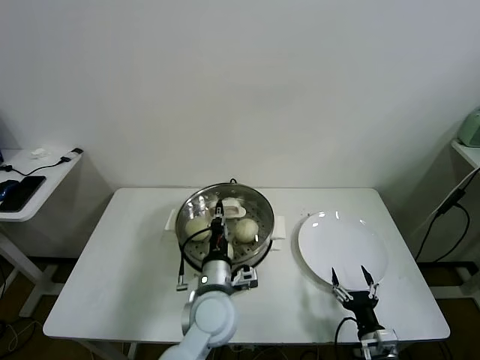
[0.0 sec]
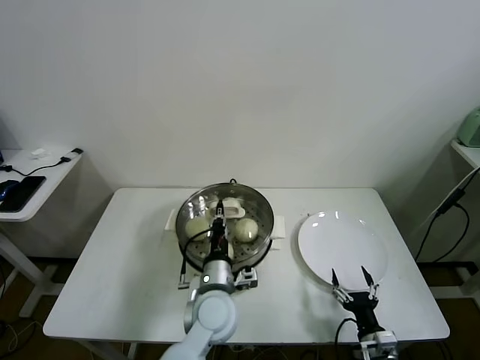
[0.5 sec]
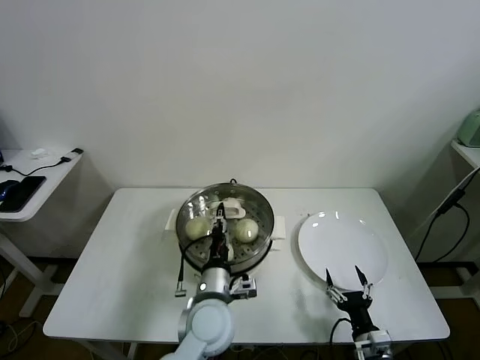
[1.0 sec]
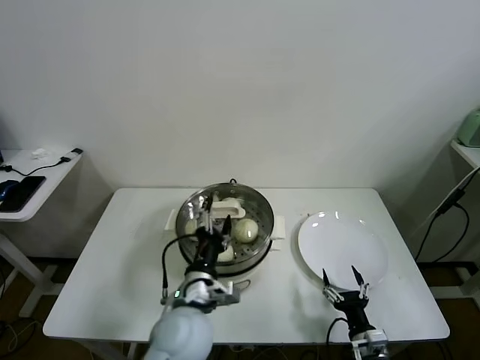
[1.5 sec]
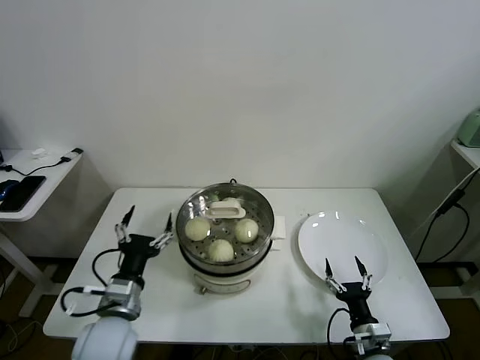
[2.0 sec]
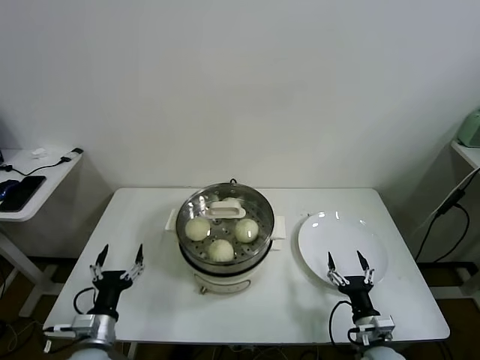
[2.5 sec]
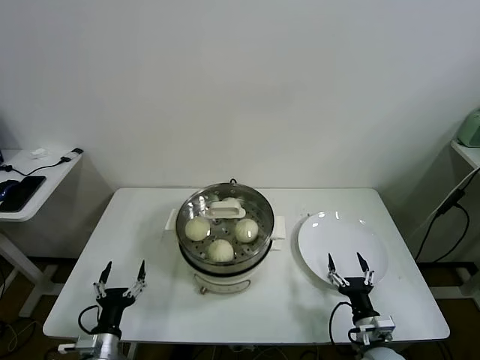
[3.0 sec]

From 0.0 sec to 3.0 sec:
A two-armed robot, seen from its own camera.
Task of the whole recording: take steamed baozi put them in steamer.
From 0.0 sec to 1.5 sec: The left gripper ends up approximately 5 cm from where it was, and opens its fingers.
From 1.5 sec to 3.0 sec: The left gripper moves to the left and downward, about 25 cm.

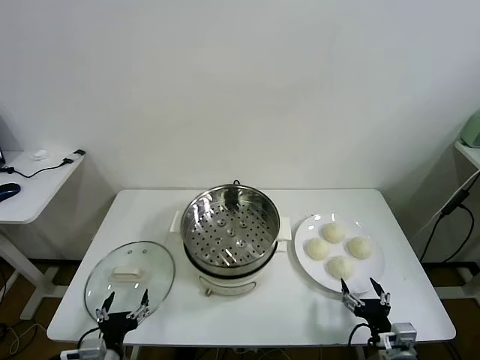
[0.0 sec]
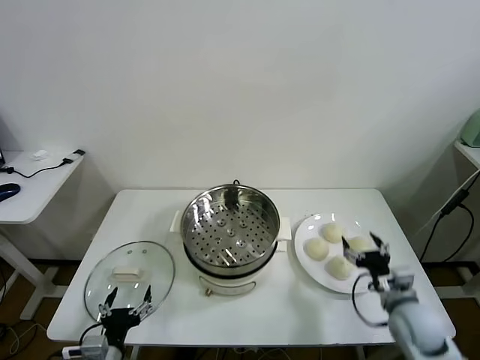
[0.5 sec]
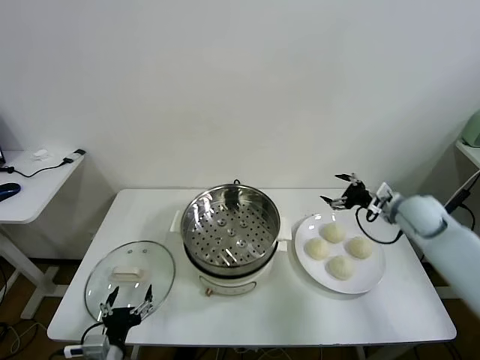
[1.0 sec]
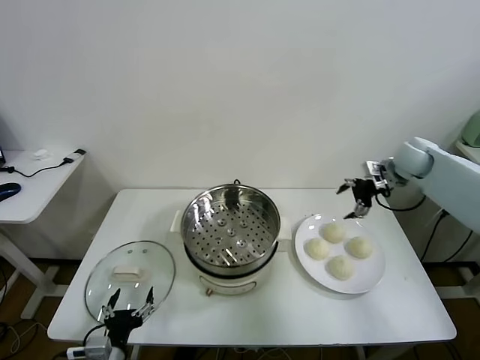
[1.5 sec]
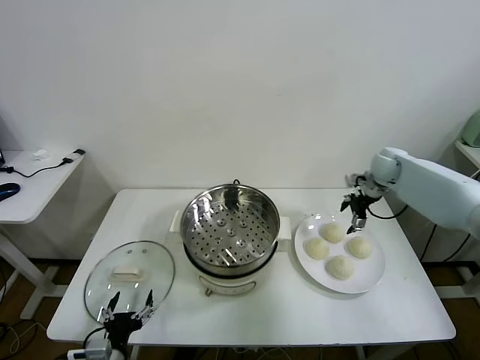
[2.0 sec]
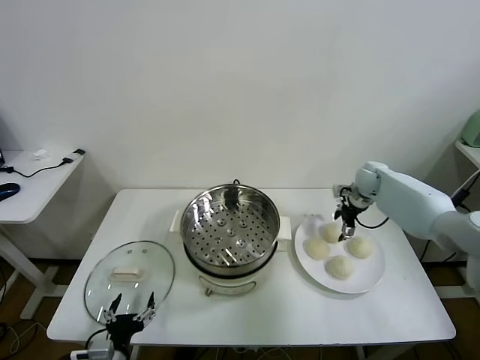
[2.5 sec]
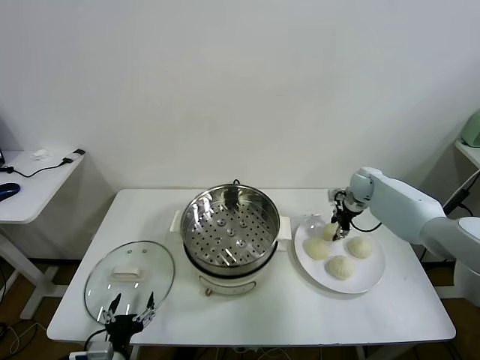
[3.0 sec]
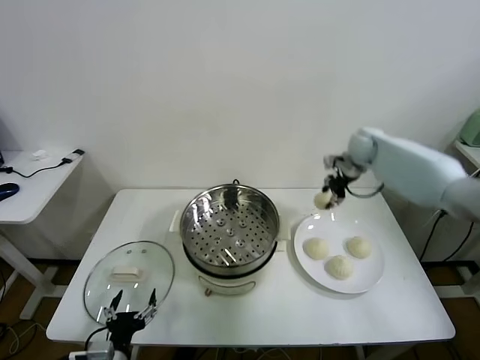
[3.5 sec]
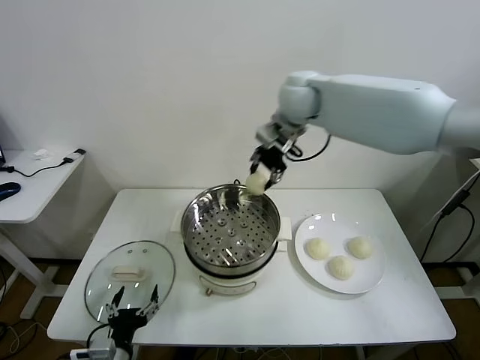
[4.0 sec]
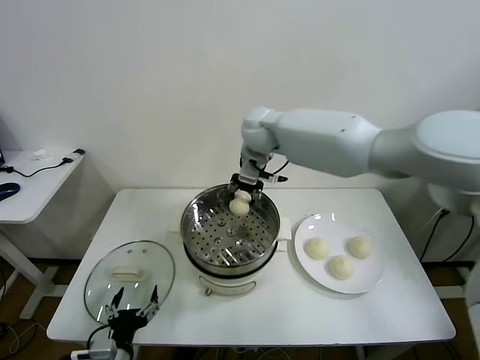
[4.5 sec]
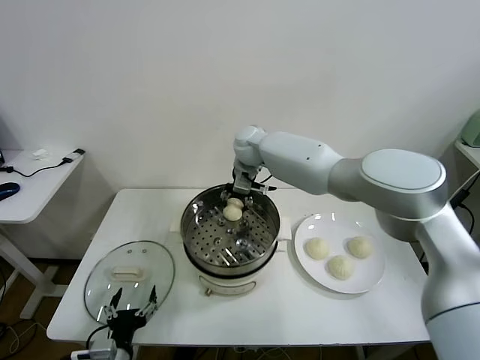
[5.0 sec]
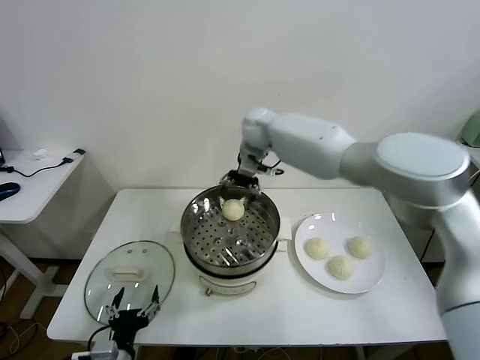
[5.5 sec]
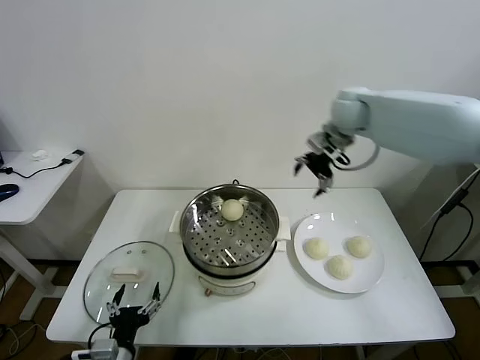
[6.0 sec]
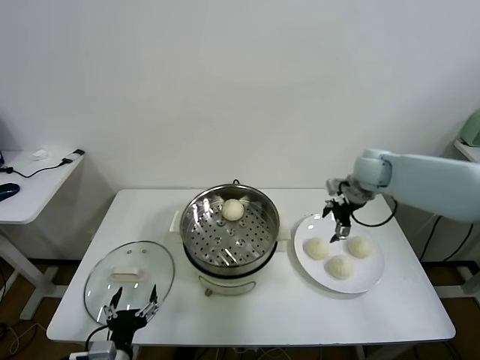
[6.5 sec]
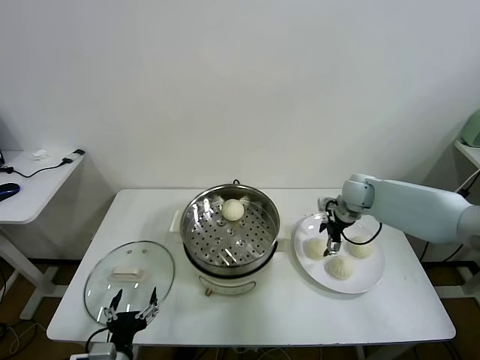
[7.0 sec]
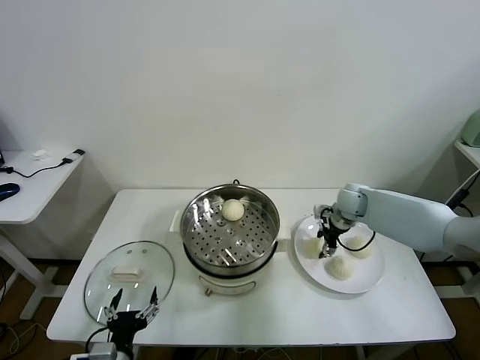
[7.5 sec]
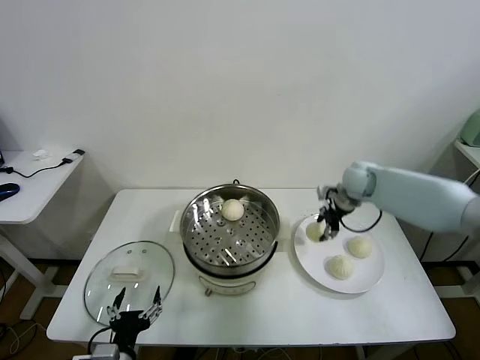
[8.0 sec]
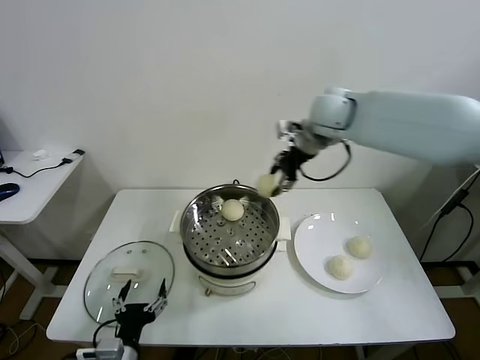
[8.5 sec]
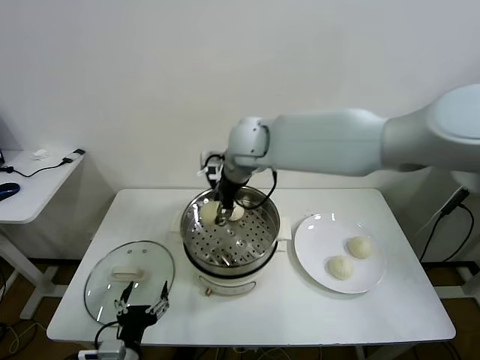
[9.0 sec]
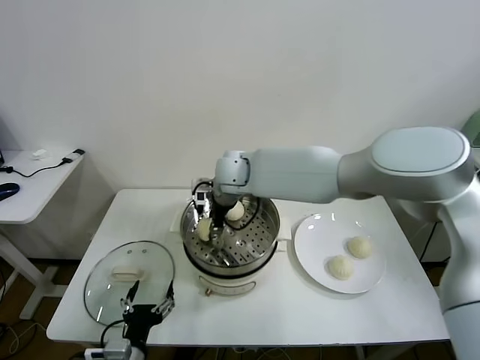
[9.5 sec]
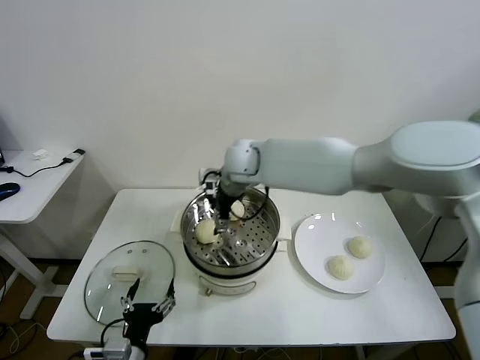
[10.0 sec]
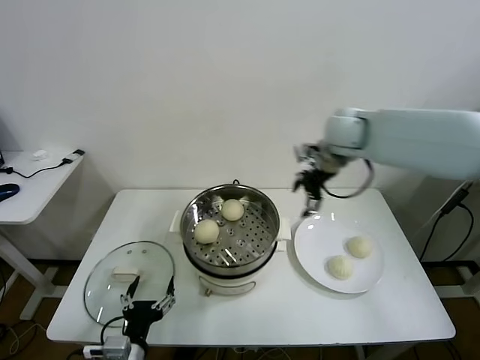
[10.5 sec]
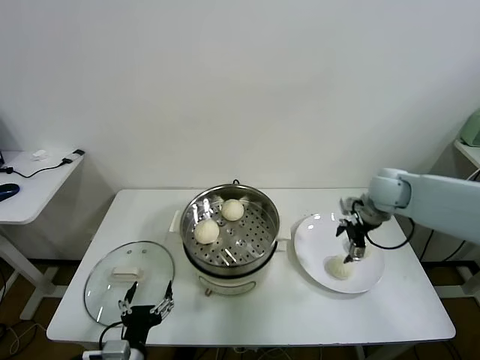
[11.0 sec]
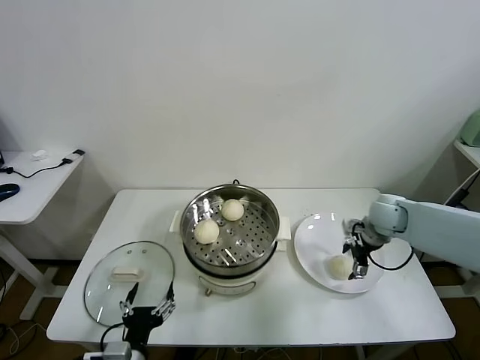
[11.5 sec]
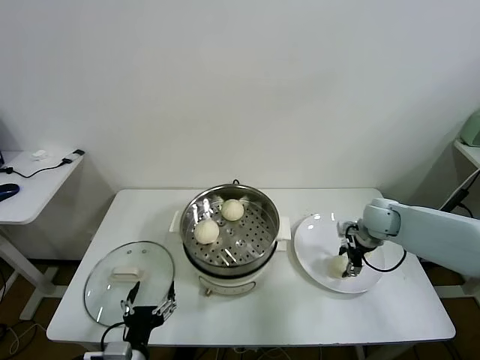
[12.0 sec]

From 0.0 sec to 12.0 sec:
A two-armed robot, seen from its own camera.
Task of the whole recording: take steamed baozi put them in steamer.
Step, from 0.0 sec to 2.5 sec: Grasp the baozi in the plate with right gripper.
Step, from 3.5 sec to 5.0 sec: Place the baozi on the steamer with right gripper.
Step, from 5.5 sec to 7.5 sec: Grasp the baozi in the plate with right gripper.
Step, from 8.0 sec to 9.5 sec: Place the baozi on the steamer with right gripper.
From 2.0 sec to 4.0 sec: The right gripper is displaced to the left and upward by some 35 cm, and closes its fingers.
From 4.0 sec to 6.0 sec: The right gripper heads to the right, covering about 20 cm, and opens its fingers.
From 6.0 sec to 8.0 sec: The right gripper heads downward, covering about 10 cm, and closes its fingers.
From 8.0 sec to 10.0 sec: The right gripper heads to the left, covering about 25 cm, and opens its fingers.
From 10.0 sec to 12.0 sec: The right gripper shifts some 35 cm to the right and downward, and closes.

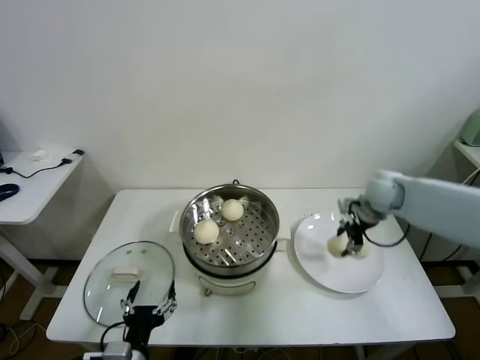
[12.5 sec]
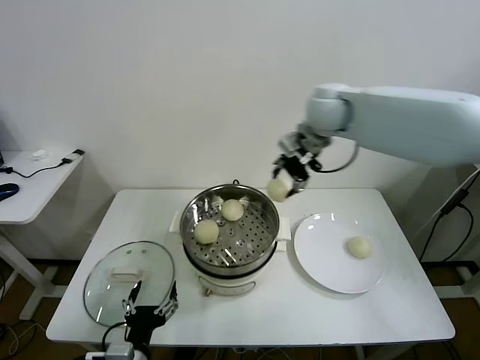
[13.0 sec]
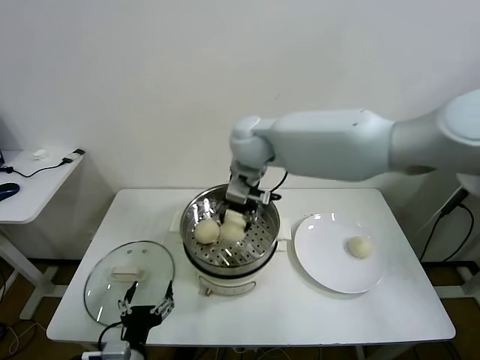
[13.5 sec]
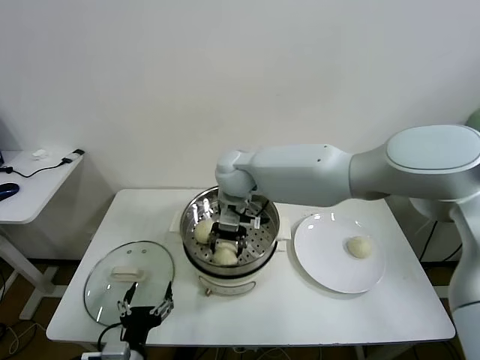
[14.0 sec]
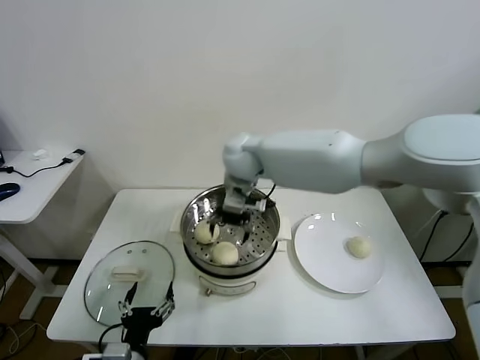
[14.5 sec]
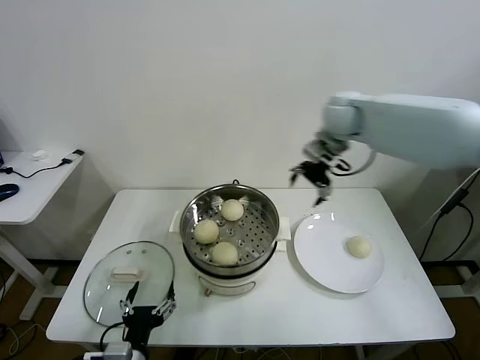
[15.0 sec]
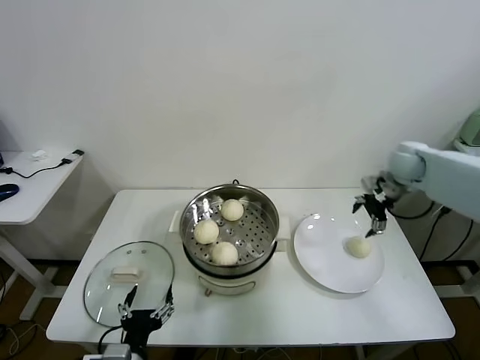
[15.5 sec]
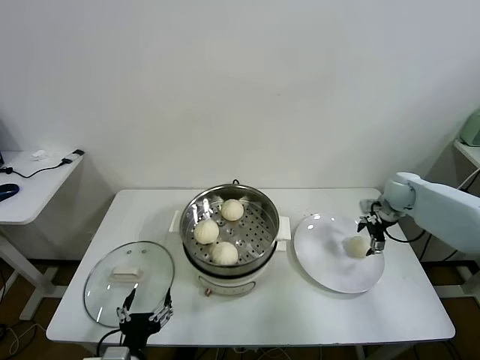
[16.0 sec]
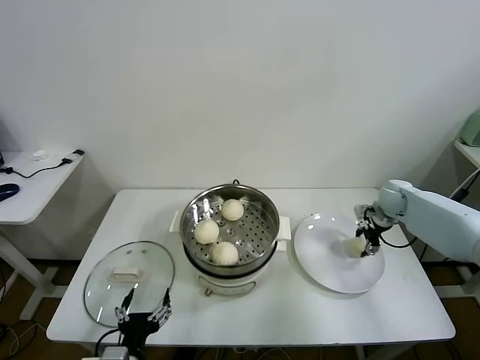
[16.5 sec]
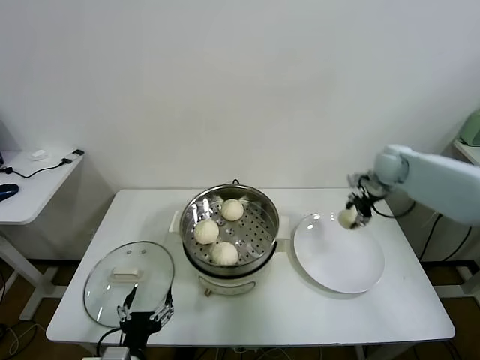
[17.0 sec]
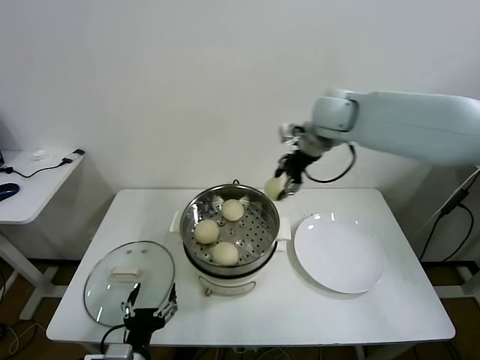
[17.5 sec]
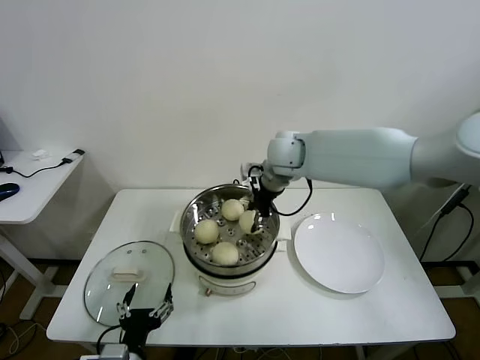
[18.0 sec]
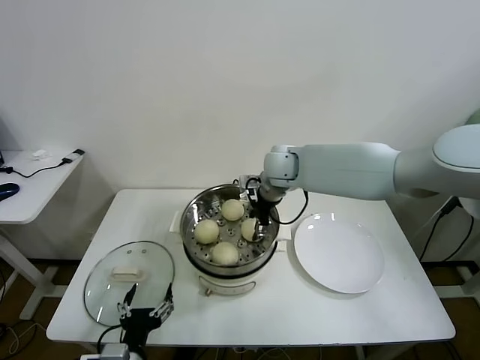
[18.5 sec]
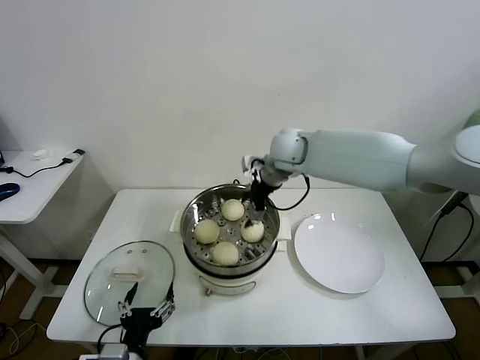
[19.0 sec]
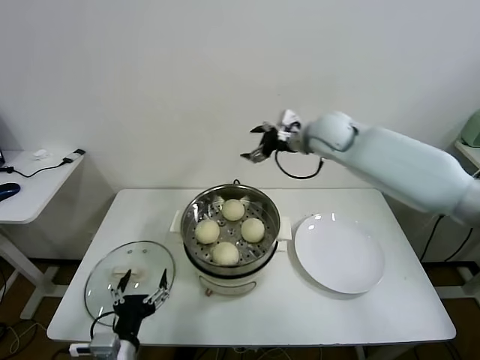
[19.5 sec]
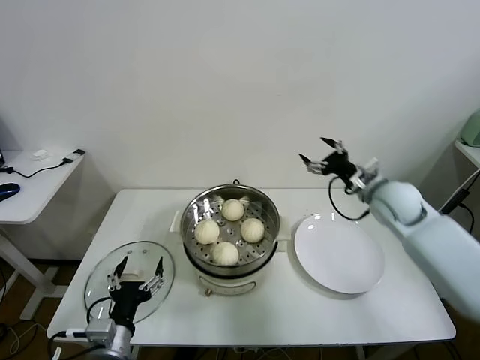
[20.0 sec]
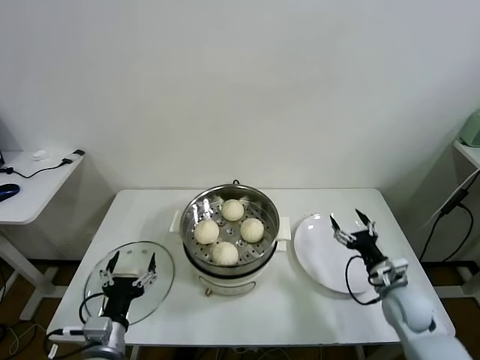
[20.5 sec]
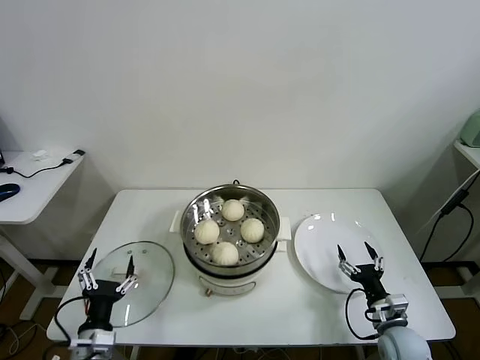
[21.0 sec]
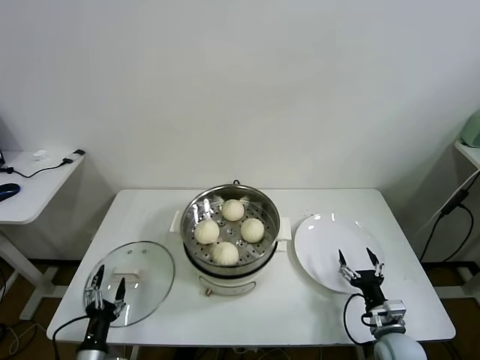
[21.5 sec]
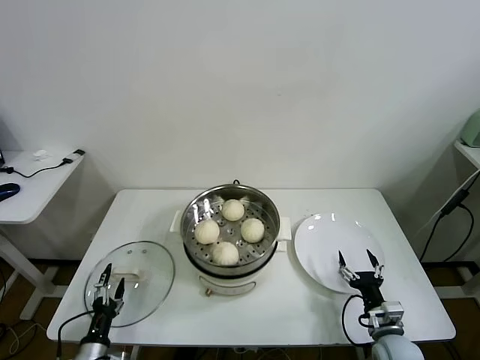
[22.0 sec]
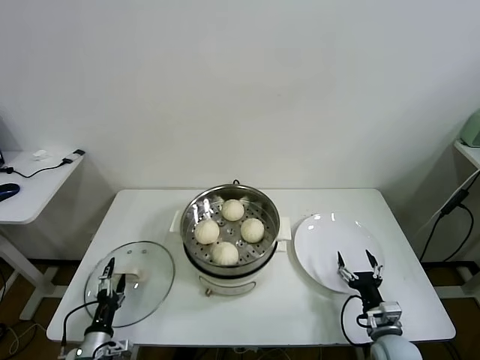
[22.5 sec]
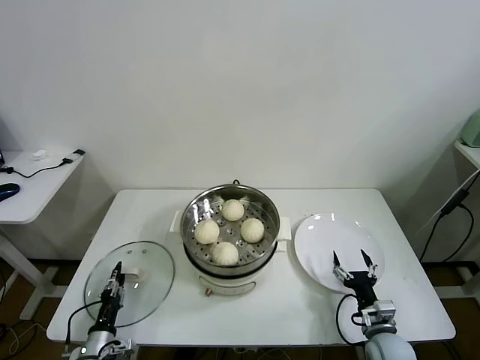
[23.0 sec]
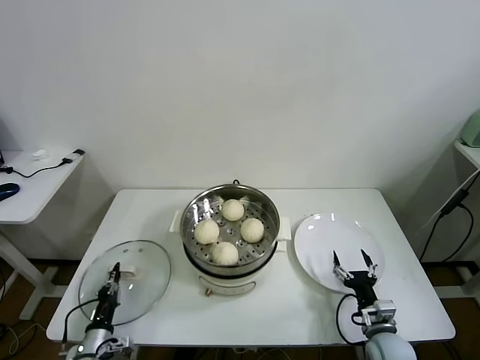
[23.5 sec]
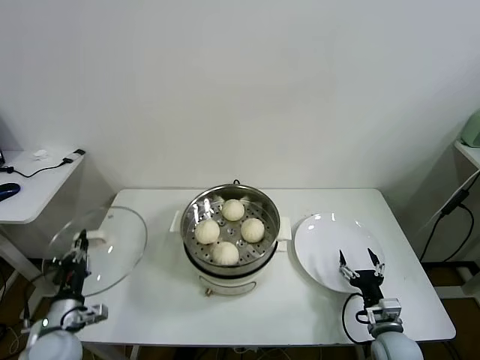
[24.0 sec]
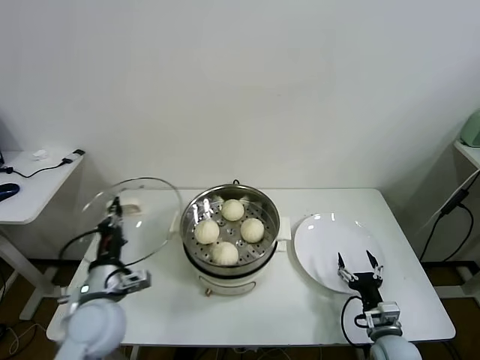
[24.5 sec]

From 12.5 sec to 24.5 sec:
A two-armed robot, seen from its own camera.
Task of the whole recording: take steamed baozi put them in steamer.
Step, from 12.5 sec to 14.0 sec: Place the baozi on the steamer with right gripper.
Step, from 14.5 sec to 16.5 sec: Grasp the baozi in the plate with right gripper.
Step, from 17.0 sec to 18.5 sec: Place the baozi on the steamer with right gripper.
Step, from 19.0 sec to 23.0 sec: Grasp the pot lid with left gripper.
From 12.5 sec to 14.5 sec: The right gripper is displaced to the left by about 30 cm, and opens.
From 14.5 sec to 16.5 sec: The right gripper moves to the right and downward, some 40 cm, and closes.
From 16.5 sec to 18.5 sec: The right gripper heads to the left, covering about 30 cm.
From 18.5 sec to 20.5 sec: The left gripper moves roughly 5 cm; the right gripper travels to the right, downward and backward by some 40 cm, and opens its fingers.
From 20.5 sec to 22.5 sec: The right gripper travels backward and downward by about 10 cm; the left gripper shifts approximately 20 cm downward and to the left.
From 22.5 sec to 24.5 sec: The left gripper travels upward by roughly 20 cm, and closes up.
